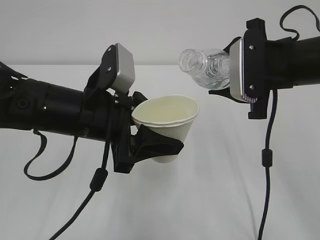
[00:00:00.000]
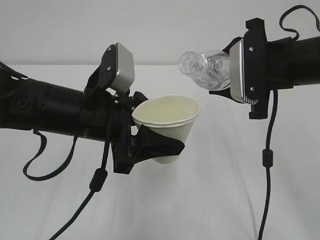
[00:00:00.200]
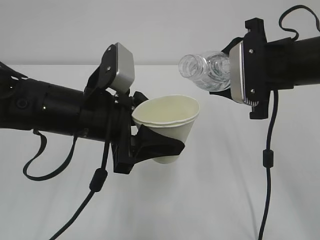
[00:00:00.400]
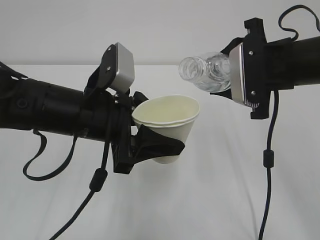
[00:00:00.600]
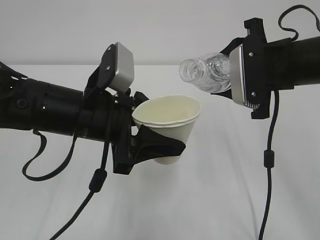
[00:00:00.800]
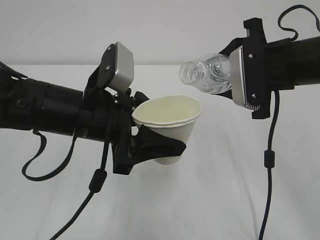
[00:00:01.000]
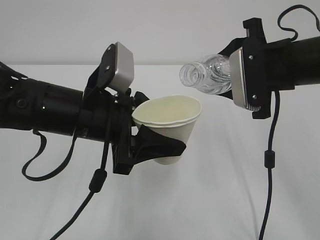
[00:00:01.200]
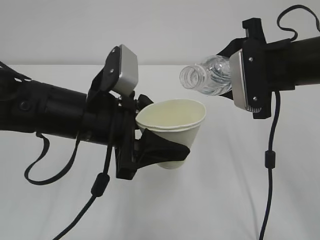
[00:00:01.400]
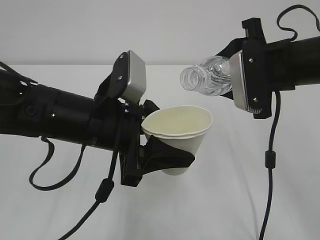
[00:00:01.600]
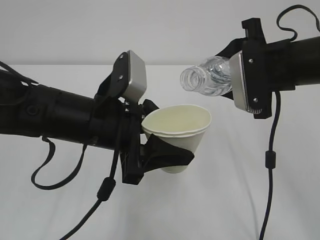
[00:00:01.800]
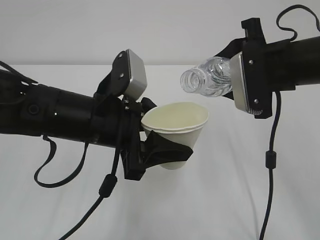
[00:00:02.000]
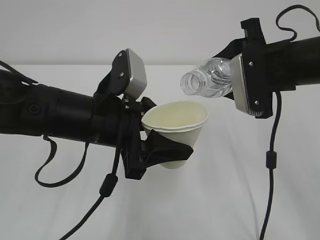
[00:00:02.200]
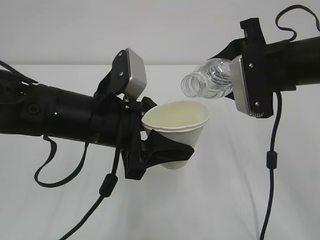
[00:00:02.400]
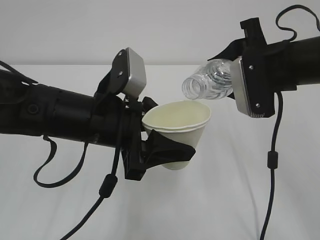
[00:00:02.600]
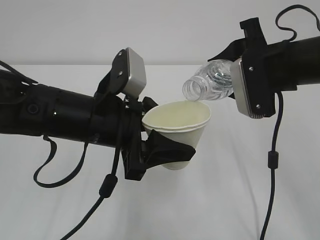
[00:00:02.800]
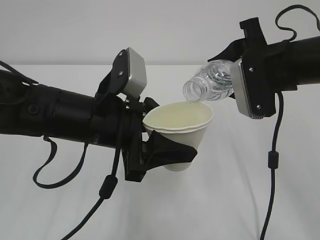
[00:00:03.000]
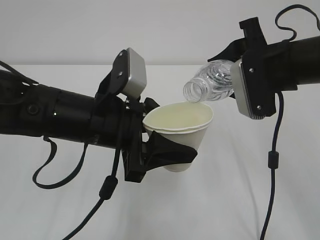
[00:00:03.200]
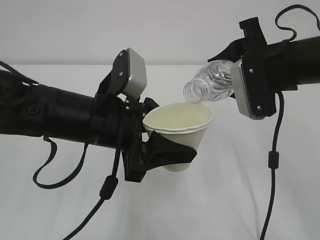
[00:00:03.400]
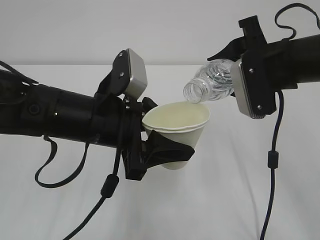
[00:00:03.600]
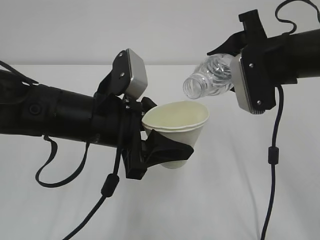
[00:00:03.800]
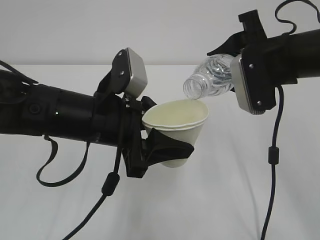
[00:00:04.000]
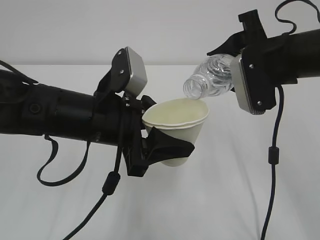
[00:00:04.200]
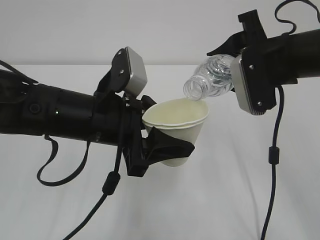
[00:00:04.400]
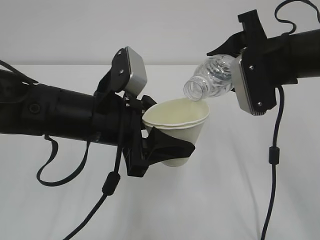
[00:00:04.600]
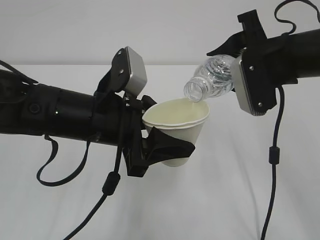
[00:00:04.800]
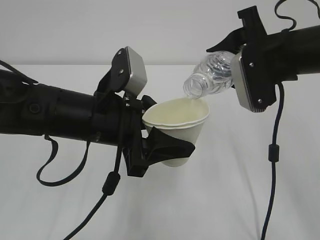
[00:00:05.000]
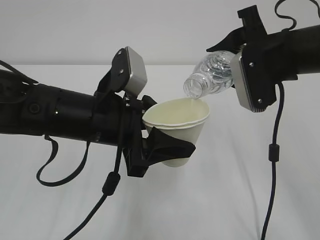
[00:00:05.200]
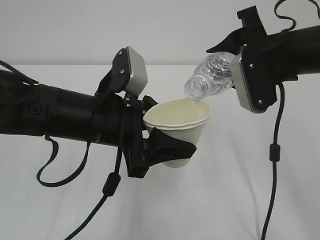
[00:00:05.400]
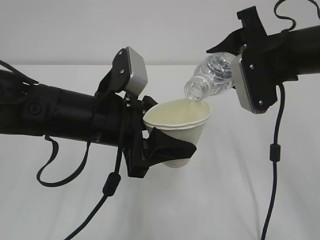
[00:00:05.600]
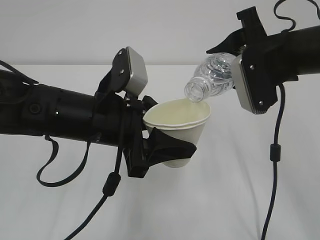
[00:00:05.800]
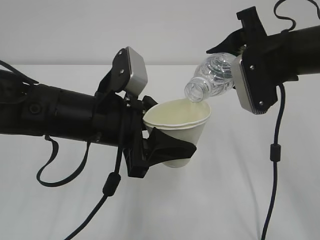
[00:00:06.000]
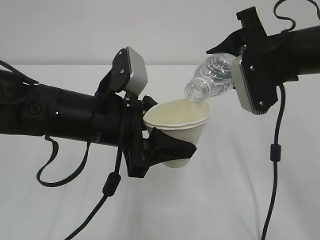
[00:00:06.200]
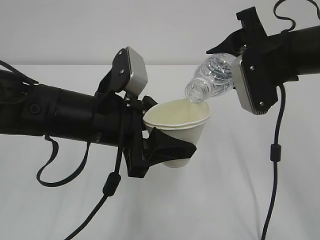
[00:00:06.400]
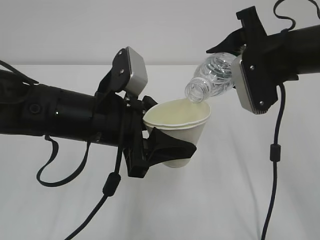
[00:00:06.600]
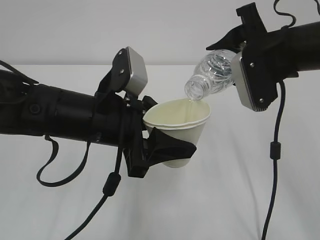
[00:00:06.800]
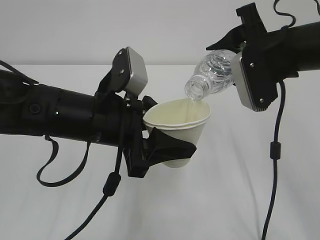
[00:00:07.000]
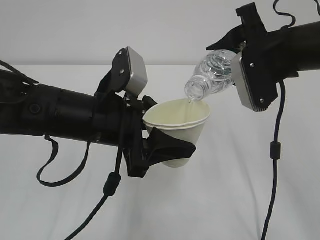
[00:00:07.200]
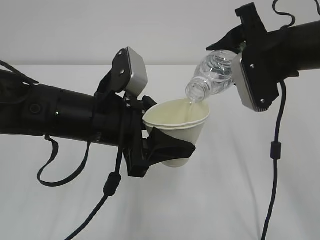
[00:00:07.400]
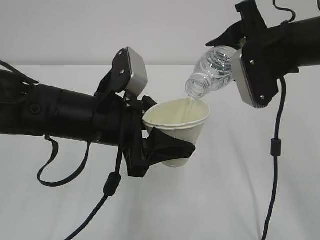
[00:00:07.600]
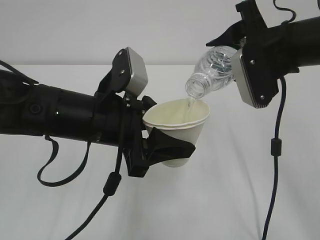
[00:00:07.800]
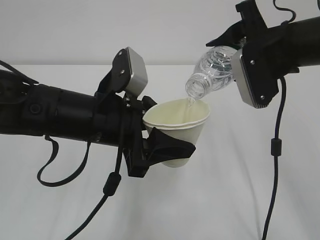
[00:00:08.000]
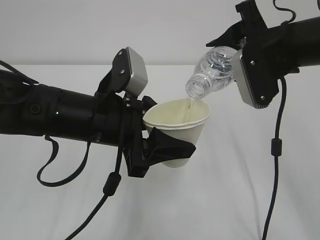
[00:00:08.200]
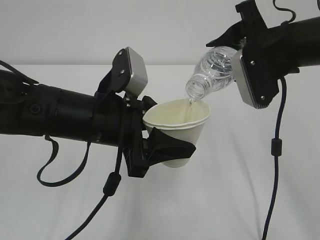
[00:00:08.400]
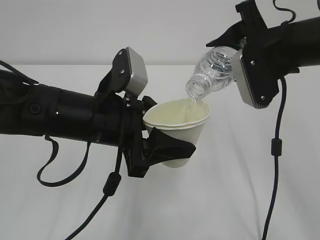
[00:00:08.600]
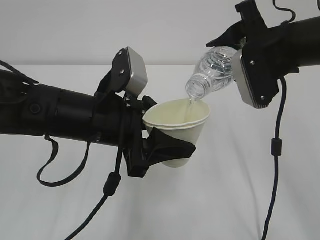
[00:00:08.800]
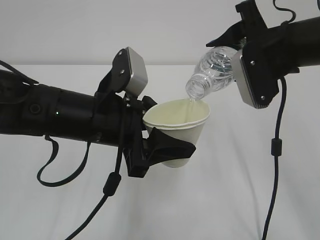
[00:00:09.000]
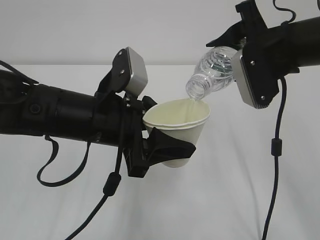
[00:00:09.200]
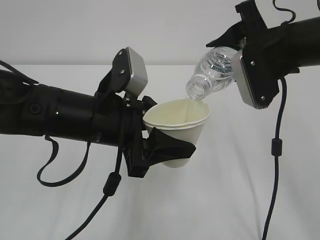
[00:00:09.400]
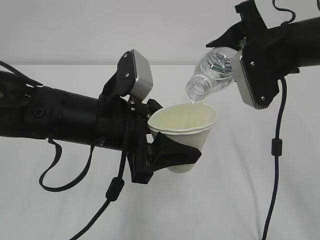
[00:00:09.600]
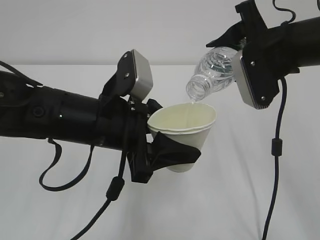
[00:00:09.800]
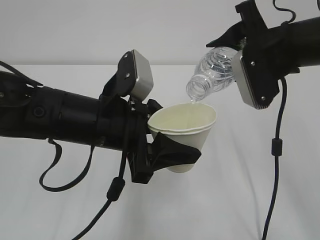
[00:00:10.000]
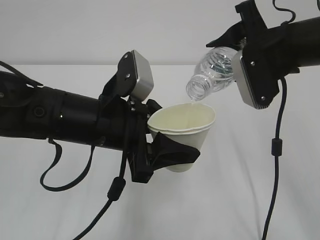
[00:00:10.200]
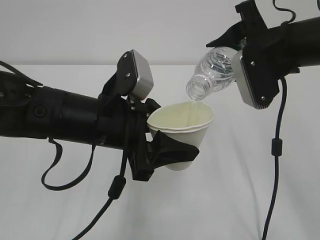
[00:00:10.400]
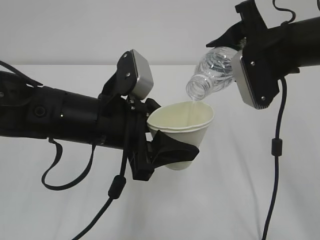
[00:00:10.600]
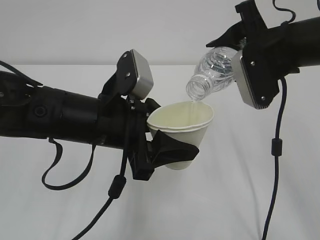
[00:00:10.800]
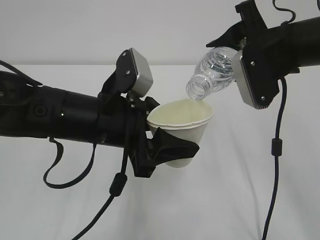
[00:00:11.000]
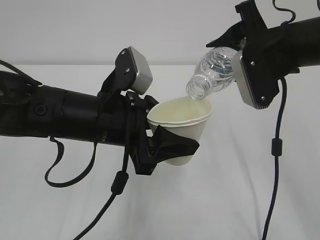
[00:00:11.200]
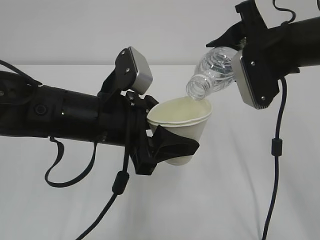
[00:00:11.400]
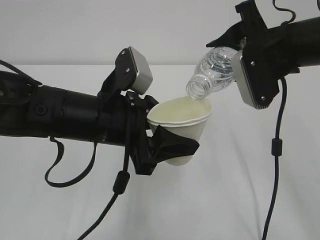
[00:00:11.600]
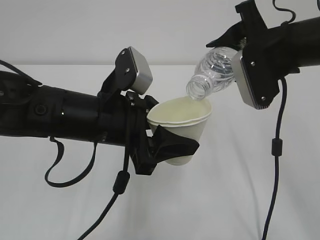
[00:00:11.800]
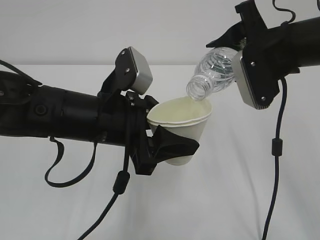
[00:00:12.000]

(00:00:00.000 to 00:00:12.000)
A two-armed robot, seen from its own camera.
00:00:00.000 - 00:00:03.000: The grippers move only a little.
00:00:03.000 - 00:00:04.400: Neither gripper changes place.
00:00:04.400 - 00:00:06.000: The two grippers keep their place.
00:00:06.000 - 00:00:12.000: Both grippers stay about where they are.

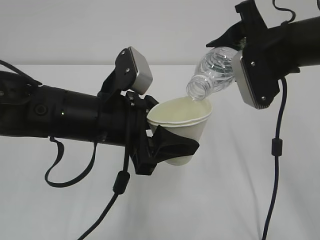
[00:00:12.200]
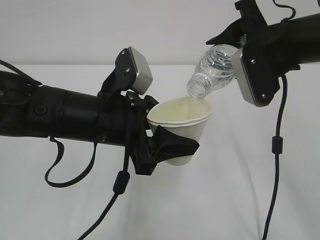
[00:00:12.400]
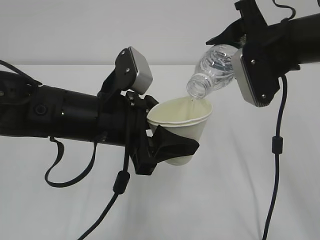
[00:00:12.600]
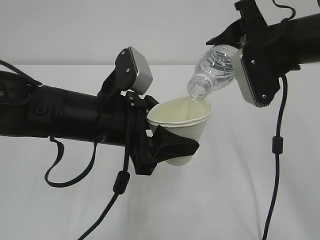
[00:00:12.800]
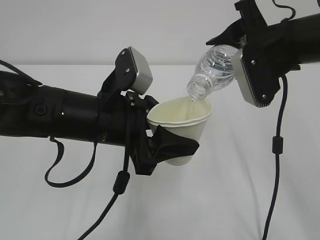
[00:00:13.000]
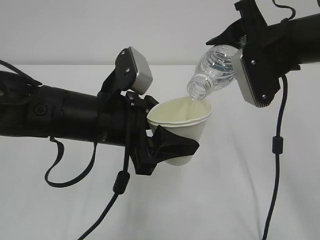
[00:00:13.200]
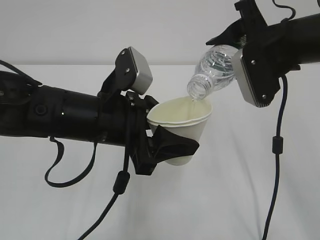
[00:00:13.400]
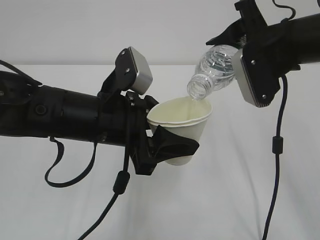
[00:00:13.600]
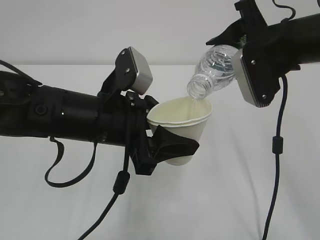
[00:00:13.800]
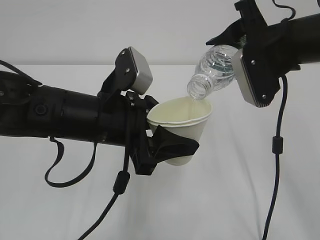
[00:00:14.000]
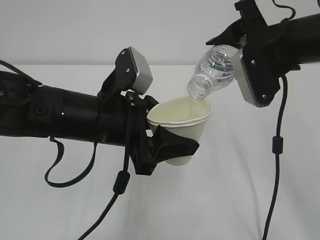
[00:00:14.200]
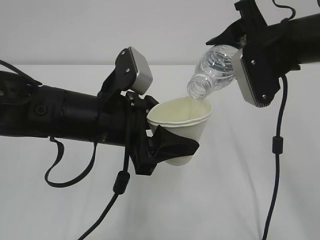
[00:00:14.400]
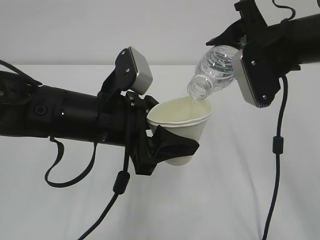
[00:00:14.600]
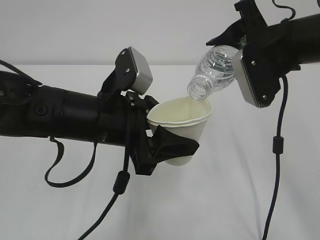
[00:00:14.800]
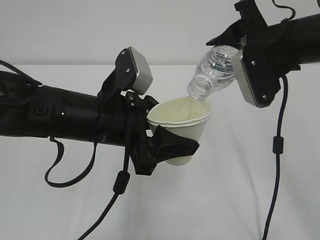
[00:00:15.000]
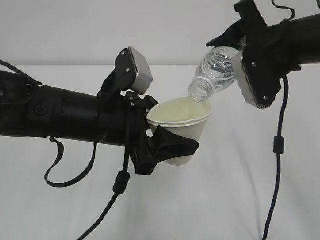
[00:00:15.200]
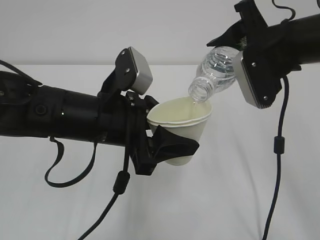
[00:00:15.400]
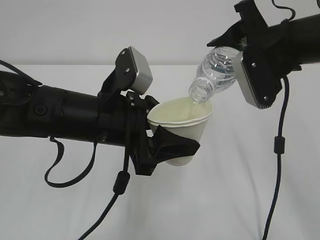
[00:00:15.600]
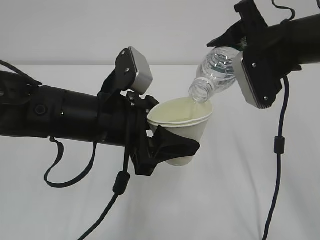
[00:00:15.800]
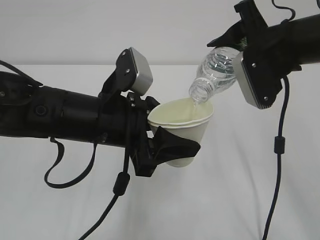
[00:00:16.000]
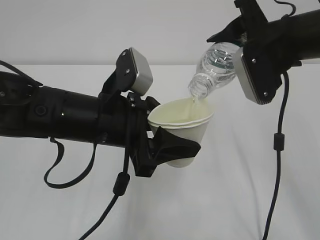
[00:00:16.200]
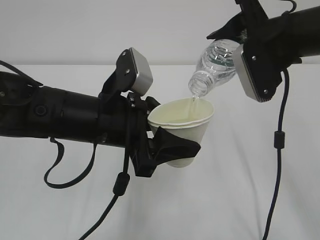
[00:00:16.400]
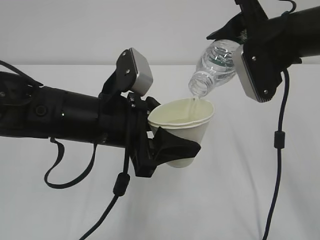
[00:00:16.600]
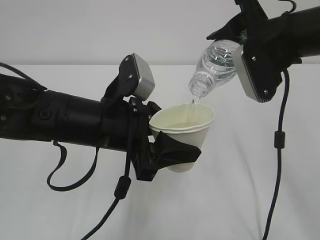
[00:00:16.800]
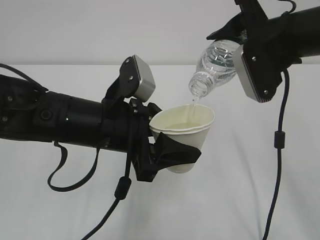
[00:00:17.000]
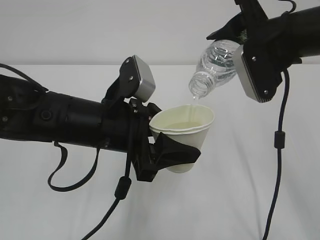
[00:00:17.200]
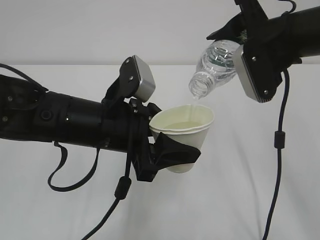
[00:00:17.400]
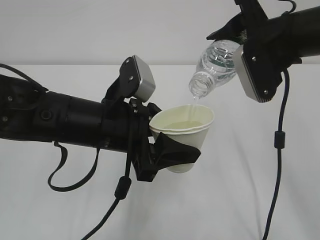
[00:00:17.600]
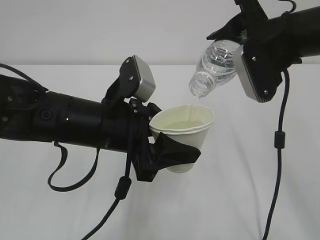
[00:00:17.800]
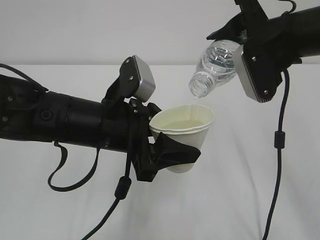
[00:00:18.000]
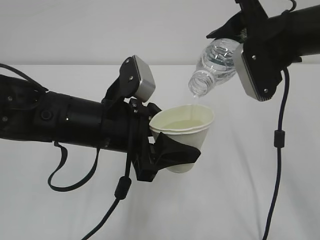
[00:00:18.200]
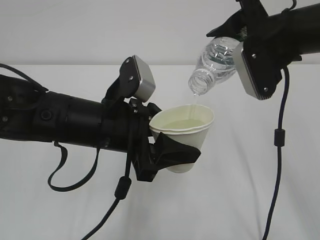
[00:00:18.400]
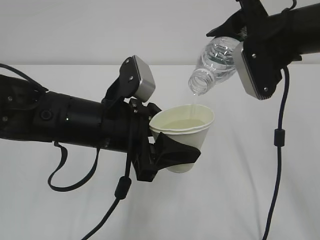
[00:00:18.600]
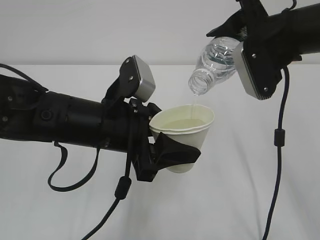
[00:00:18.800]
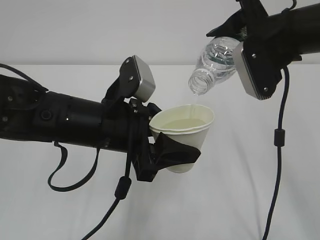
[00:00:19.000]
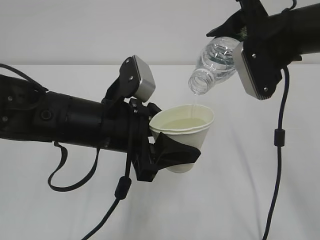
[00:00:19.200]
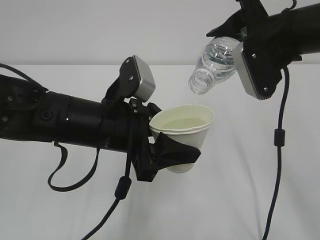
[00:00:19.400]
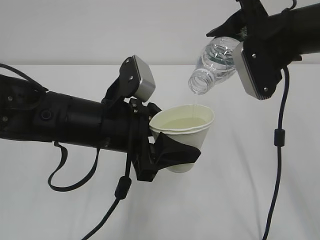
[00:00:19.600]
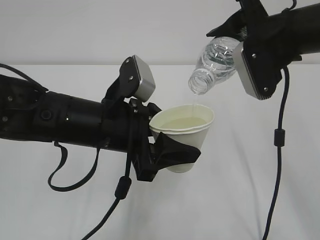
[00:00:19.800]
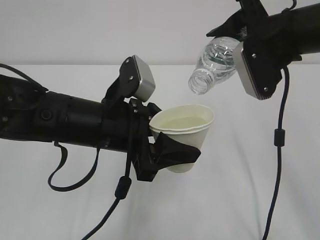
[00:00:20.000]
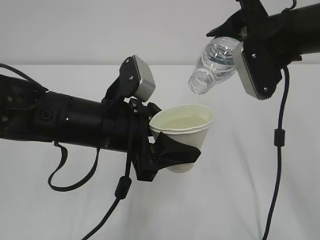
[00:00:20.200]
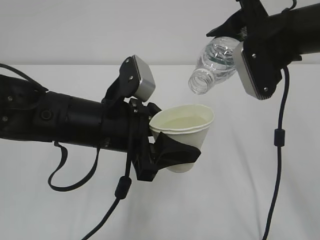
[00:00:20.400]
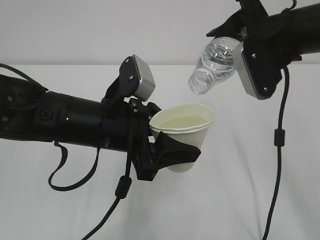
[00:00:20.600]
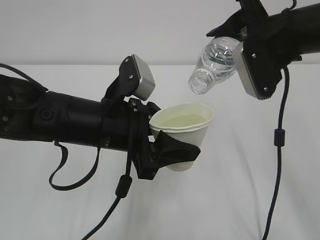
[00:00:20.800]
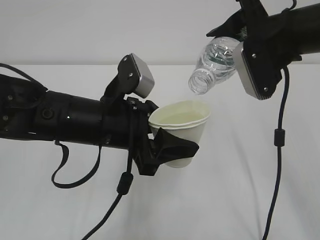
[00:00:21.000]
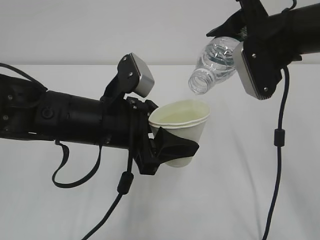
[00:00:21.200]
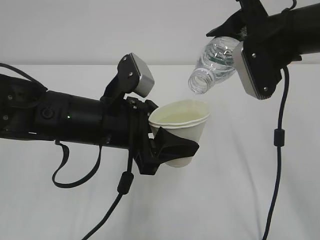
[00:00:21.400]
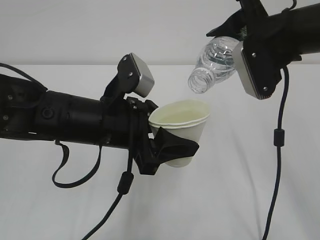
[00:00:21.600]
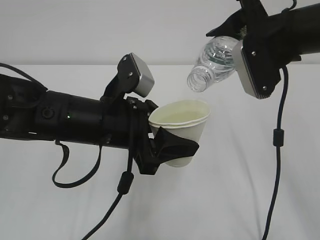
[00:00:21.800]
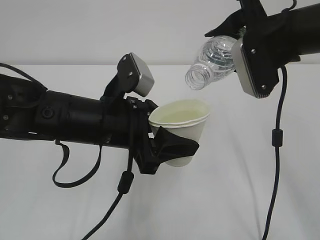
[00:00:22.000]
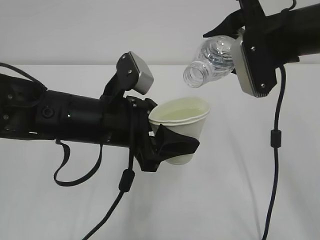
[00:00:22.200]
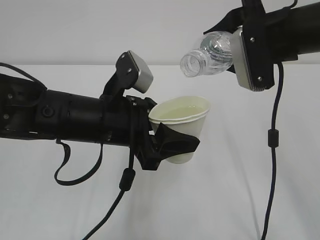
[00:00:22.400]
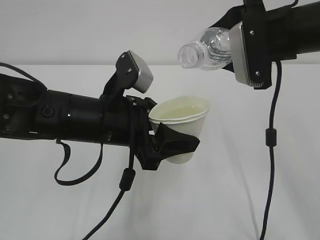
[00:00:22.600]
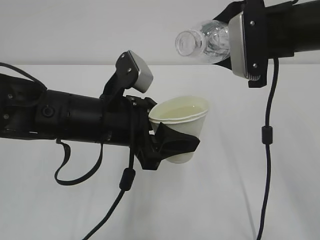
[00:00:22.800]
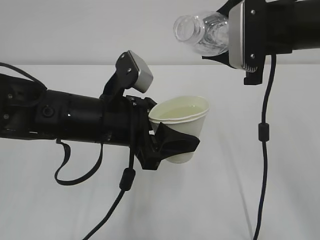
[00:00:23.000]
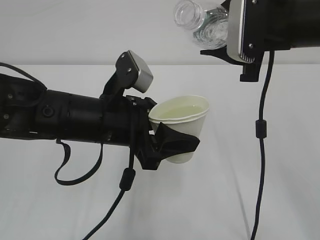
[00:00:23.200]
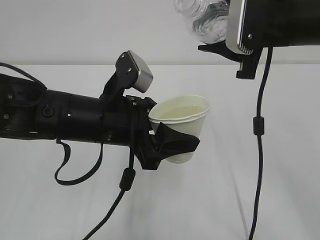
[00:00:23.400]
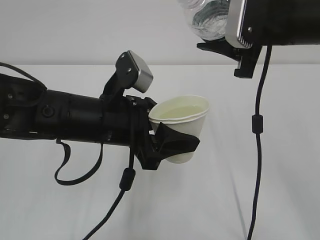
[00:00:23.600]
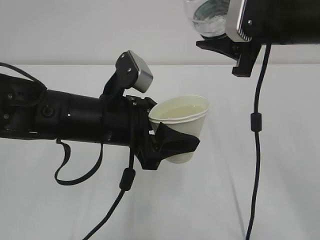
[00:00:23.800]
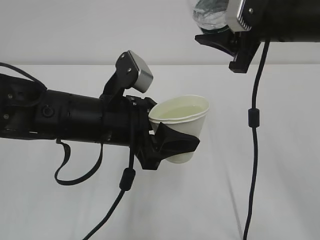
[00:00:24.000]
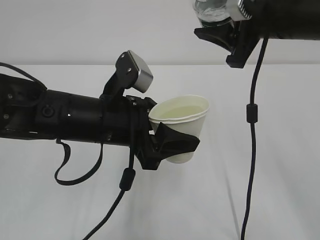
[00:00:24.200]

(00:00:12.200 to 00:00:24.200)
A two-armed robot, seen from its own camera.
00:00:12.200 - 00:00:16.600: The two grippers keep their place.
00:00:16.600 - 00:00:21.200: Both grippers stay put.
00:00:21.200 - 00:00:22.600: There are only small adjustments of the grippers.
